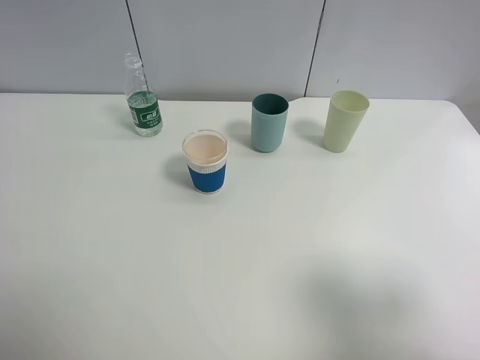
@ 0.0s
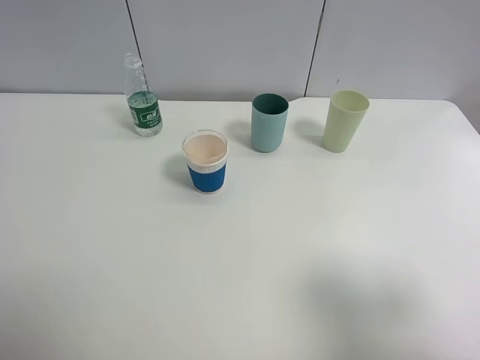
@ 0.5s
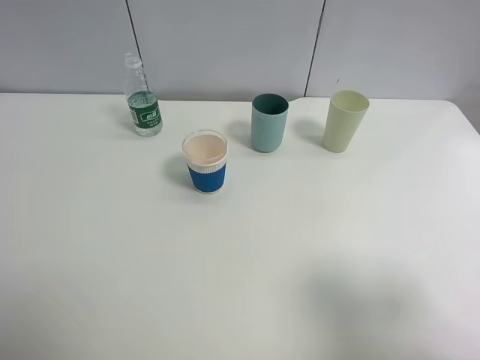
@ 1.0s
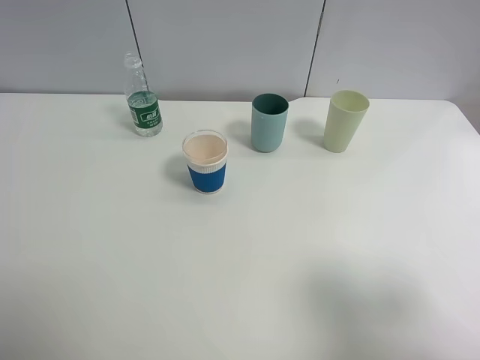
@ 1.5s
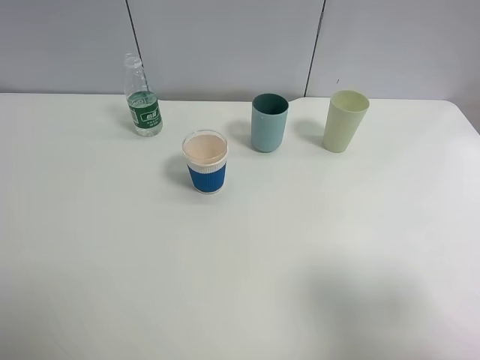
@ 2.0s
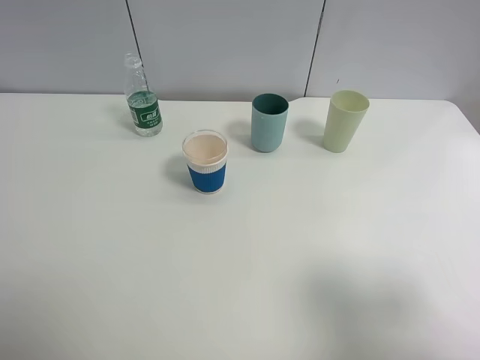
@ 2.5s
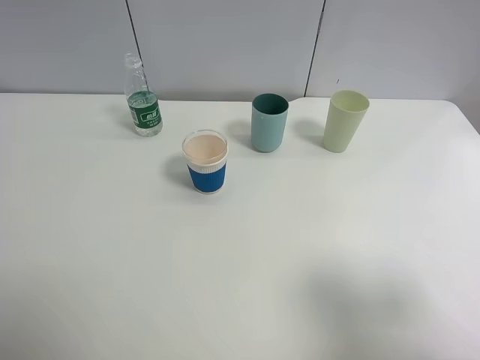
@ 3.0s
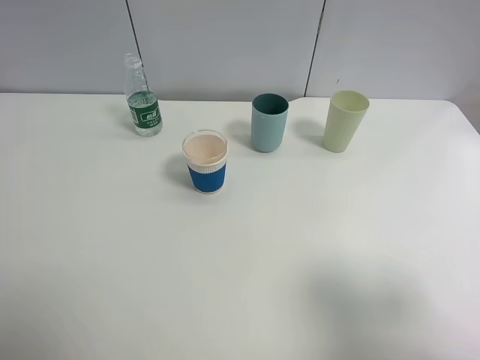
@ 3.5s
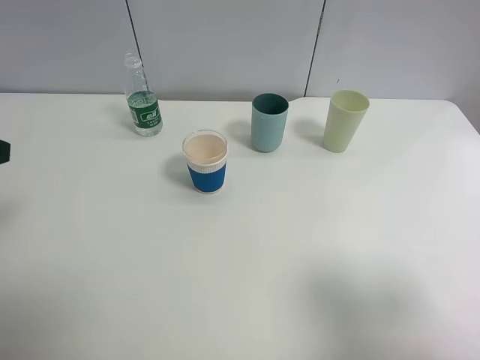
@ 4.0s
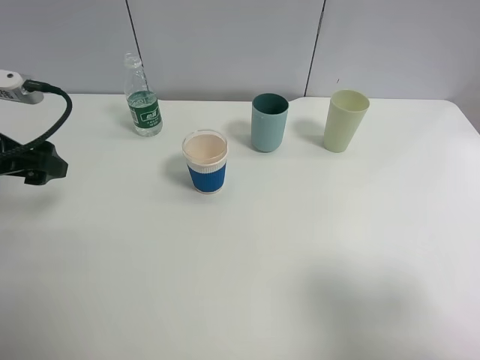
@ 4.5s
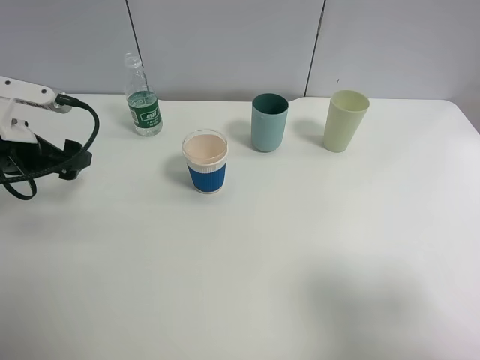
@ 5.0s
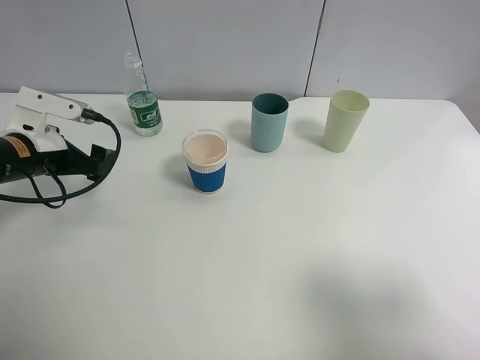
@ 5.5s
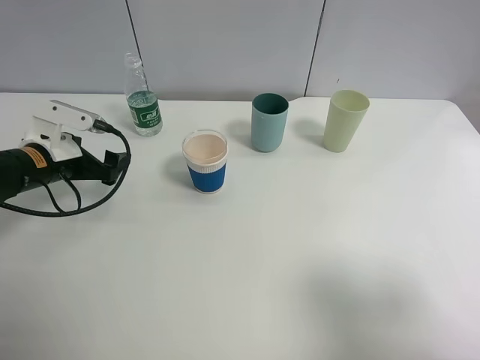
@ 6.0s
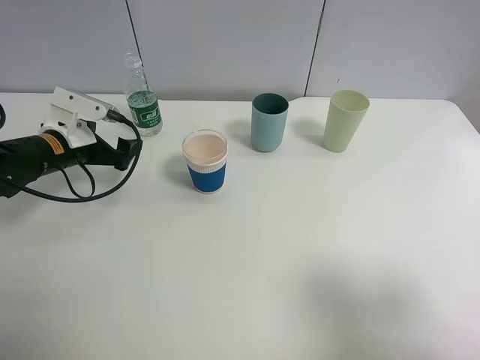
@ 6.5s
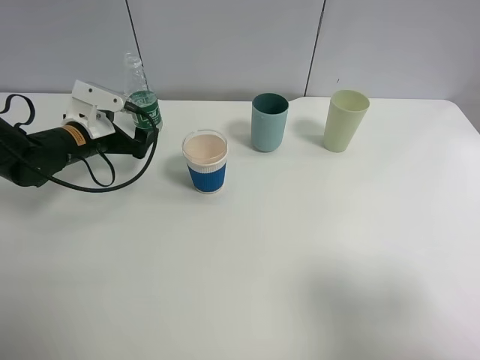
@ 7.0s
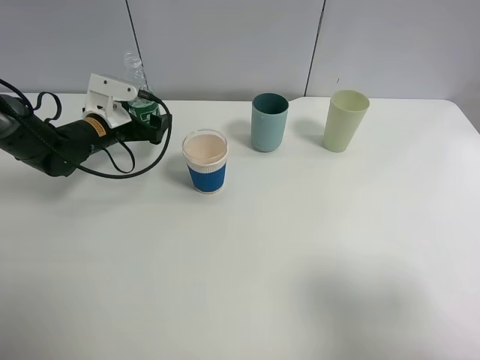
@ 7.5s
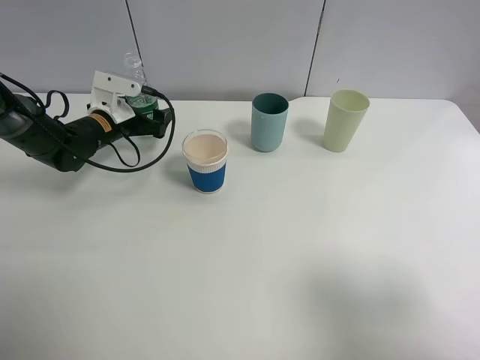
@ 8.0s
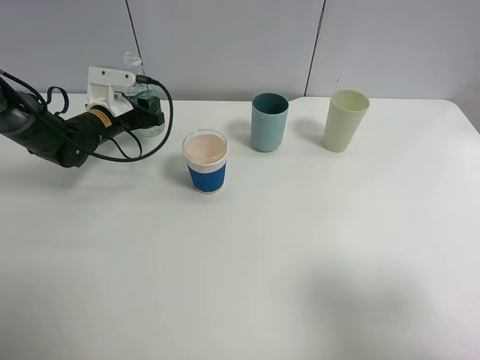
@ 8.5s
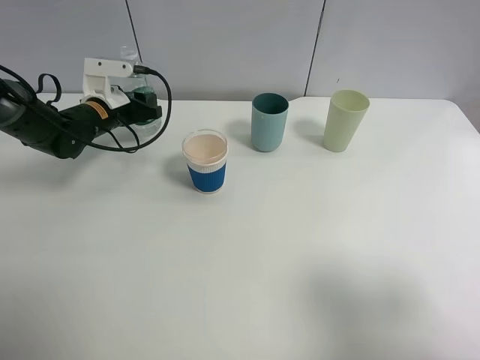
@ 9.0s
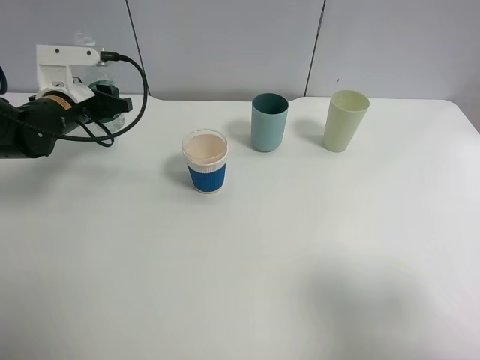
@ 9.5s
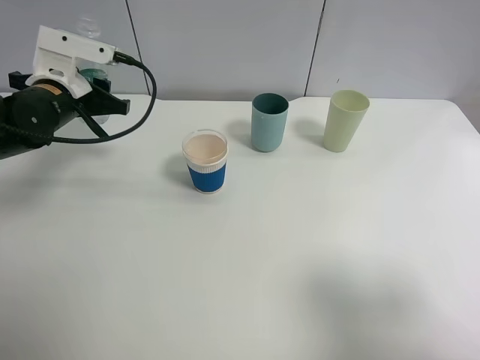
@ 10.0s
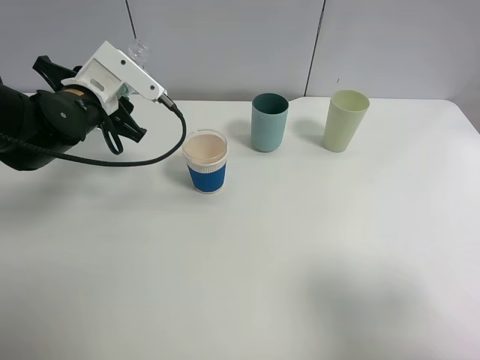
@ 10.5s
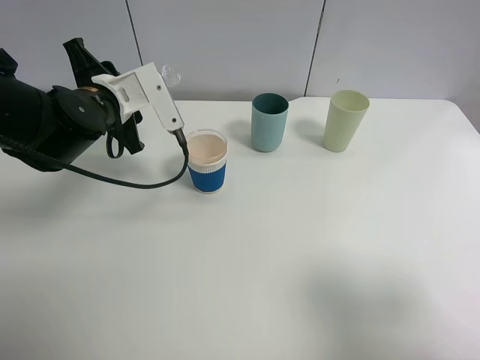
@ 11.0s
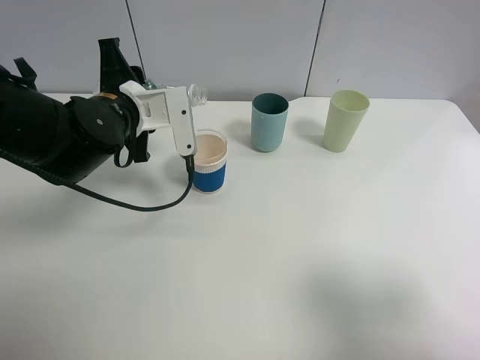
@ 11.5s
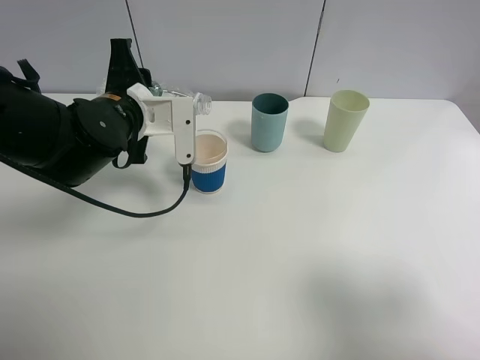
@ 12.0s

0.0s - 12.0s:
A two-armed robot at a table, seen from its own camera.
Task of the whole recording: use a clamp to hold the bottle of the drink, pour the beverage into a random cup, then clamp the cup containing the drink and pour the drink into another random cup.
Step, 0.0s - 8.5s: Pick up the water bottle with left gripper.
0.0s - 2.0s: Both grippers stay about where they are.
4.0s - 6.0s: The left gripper heads downward and forward, covering about 20 cm.
6.0s - 8.0s: The left gripper heads forward, covering about 10 cm.
8.0s - 10.0s: The left gripper moves upward and backward, roughly 10 cm, and closes its fingers.
10.0s - 12.0s: The left gripper is displaced to the right by about 10 cm.

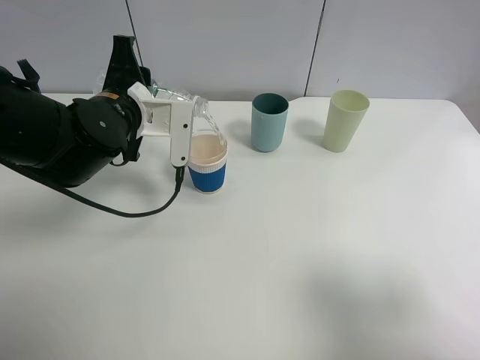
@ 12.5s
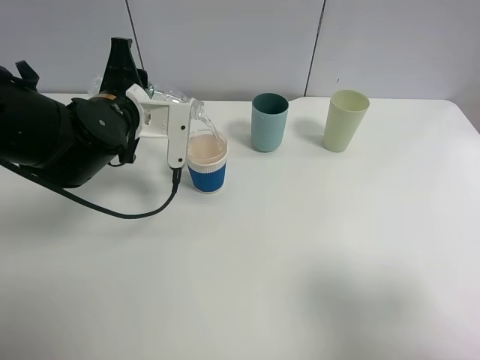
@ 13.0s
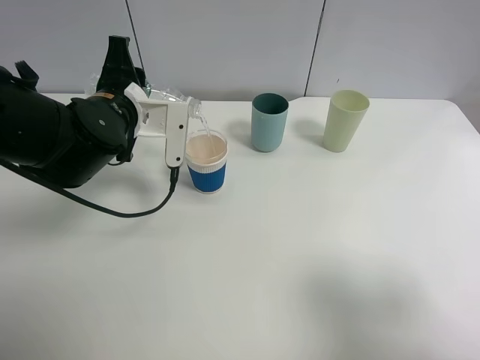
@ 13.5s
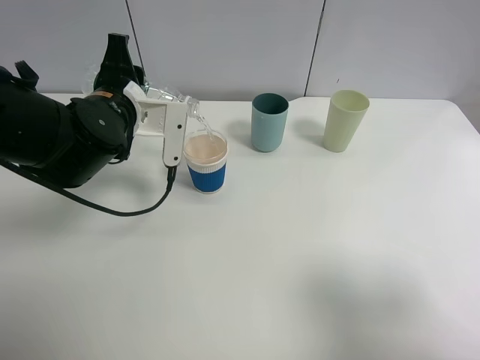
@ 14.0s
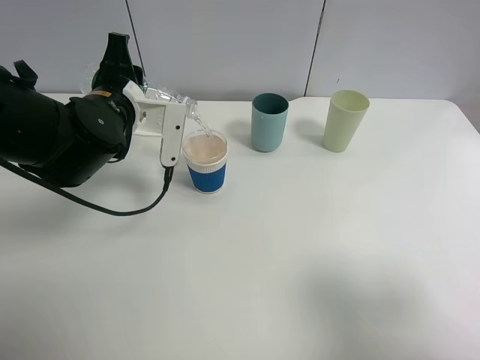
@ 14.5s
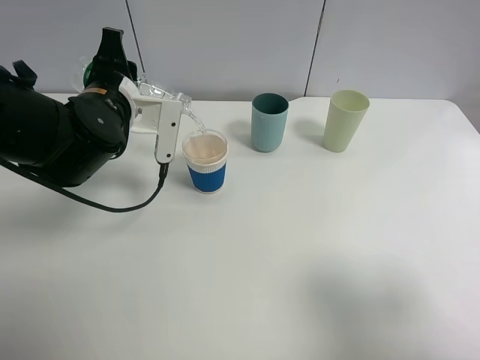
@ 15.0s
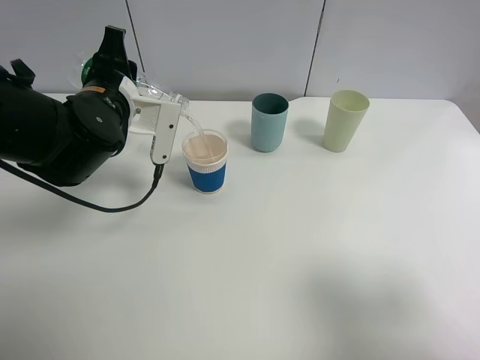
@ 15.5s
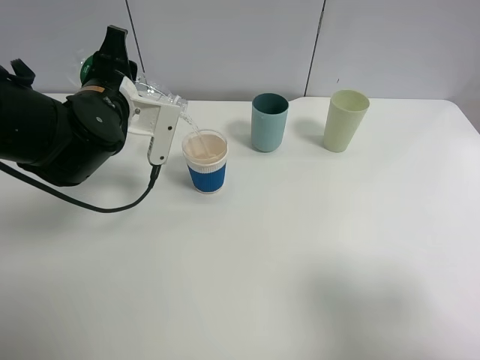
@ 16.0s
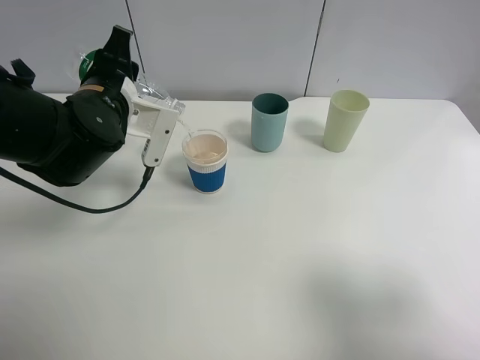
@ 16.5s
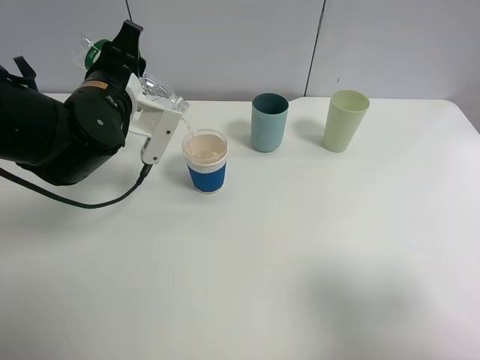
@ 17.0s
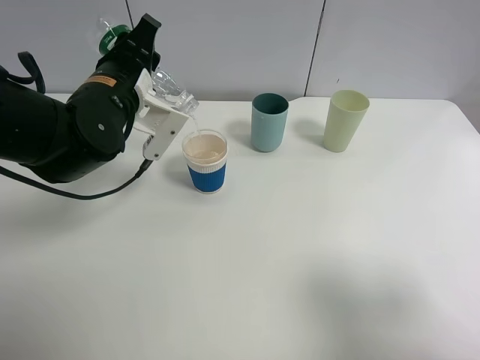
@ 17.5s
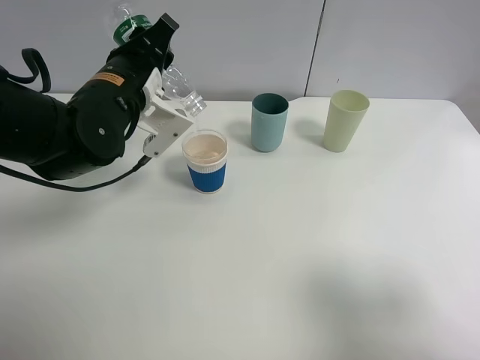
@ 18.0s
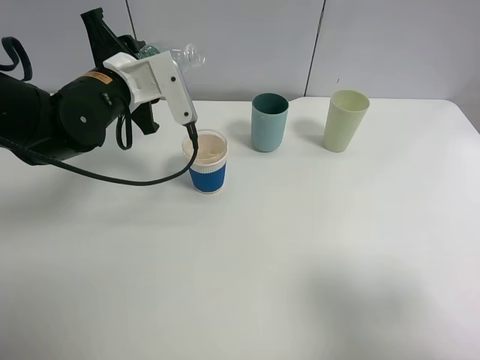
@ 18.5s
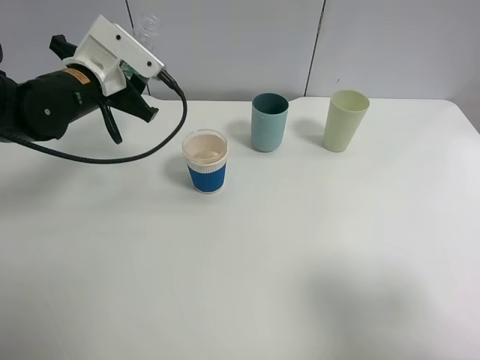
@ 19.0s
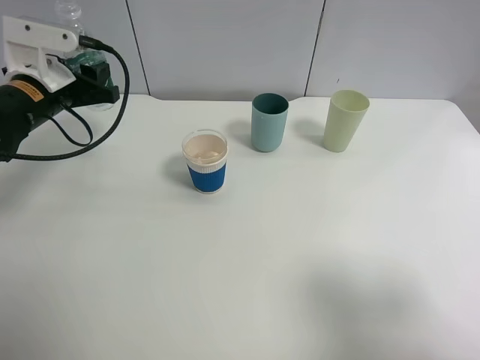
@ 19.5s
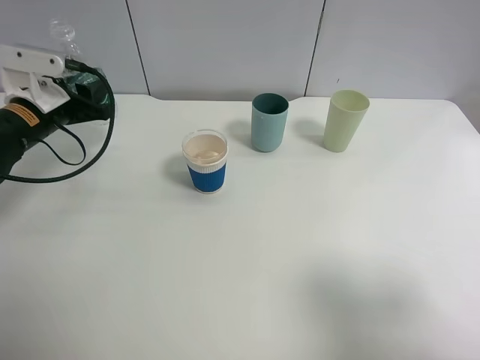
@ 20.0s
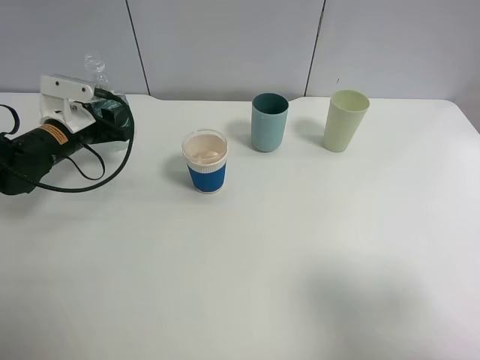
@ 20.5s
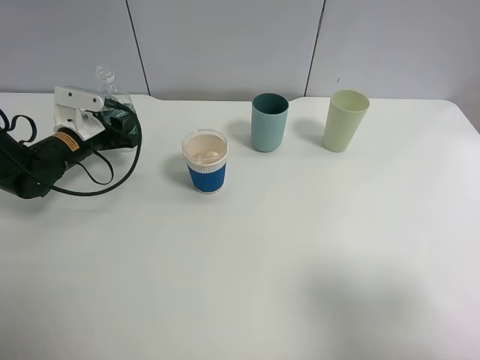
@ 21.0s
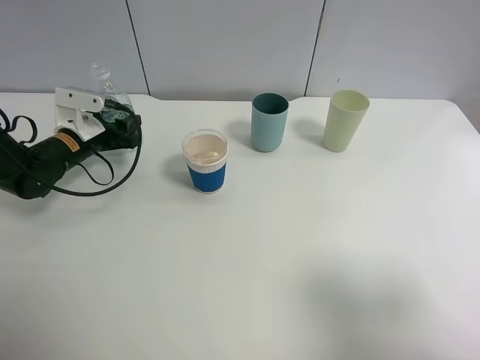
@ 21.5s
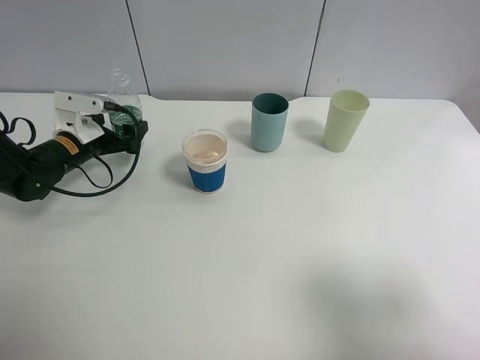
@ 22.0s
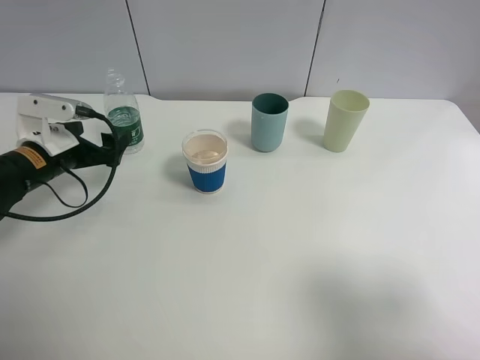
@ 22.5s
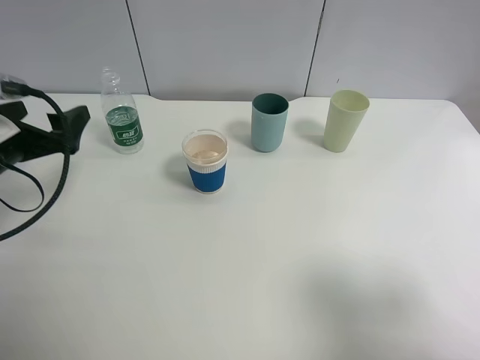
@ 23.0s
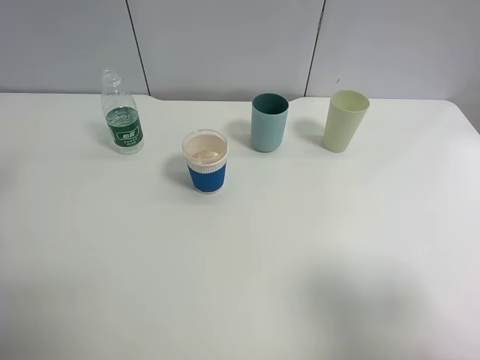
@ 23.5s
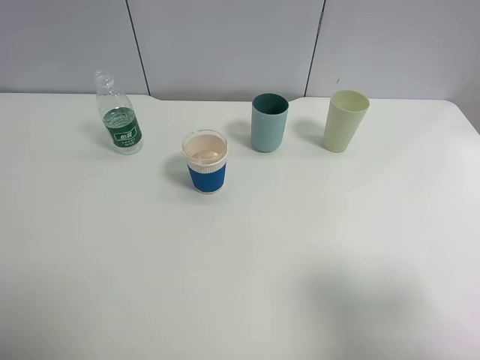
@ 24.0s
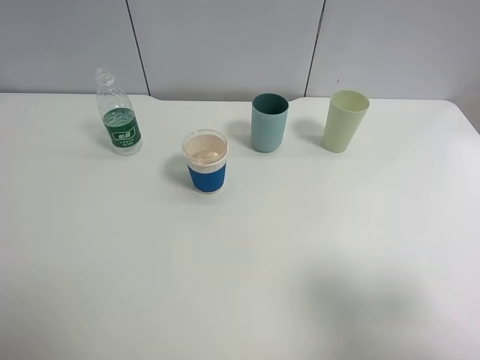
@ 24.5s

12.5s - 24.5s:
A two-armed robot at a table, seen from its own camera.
Task of the whole recording: use a clamp to hold the bottle of the drink, pour the beverage into a random cup, then clamp the cup containing the drink and pour the drink into another random cup.
Step, 12.5s - 18.0s: Pour water into the paper cup with left gripper.
Step, 18.5s - 21.5s: Place the water bottle on the table with left gripper.
12.5s - 16.5s: There are only small adjustments of the grippers.
18.5s - 20.5s: The left gripper shifts some 15 cm to the left and downward.
20.5s - 22.5s: The left gripper moves backward, roughly 5 cm, and opens.
22.5s - 24.5s: The left gripper goes roughly 35 cm backward and upward.

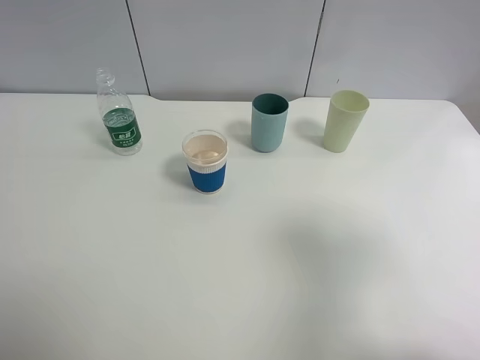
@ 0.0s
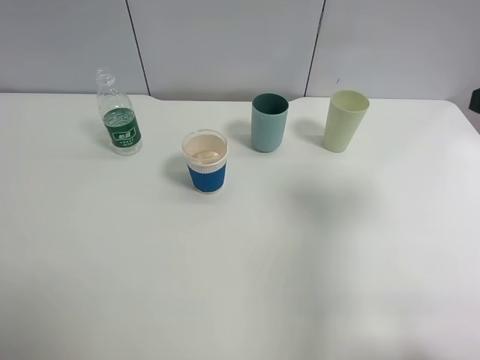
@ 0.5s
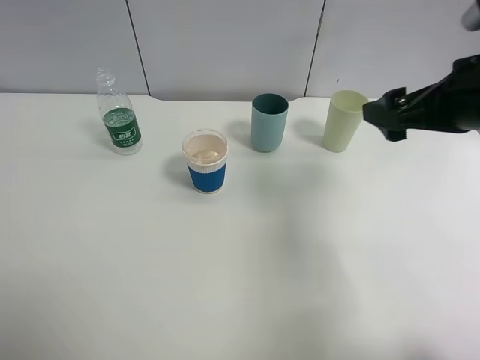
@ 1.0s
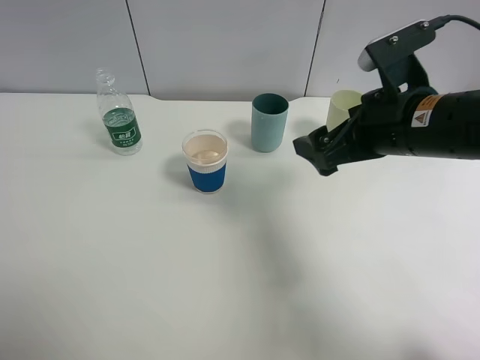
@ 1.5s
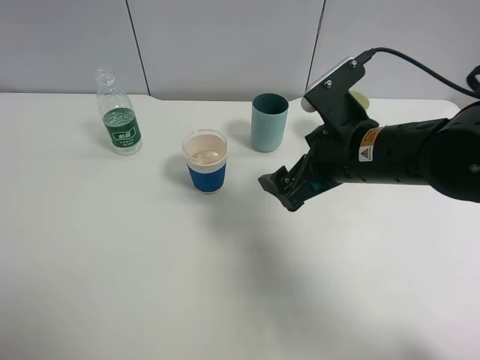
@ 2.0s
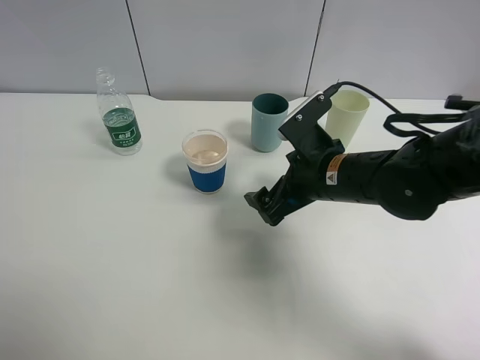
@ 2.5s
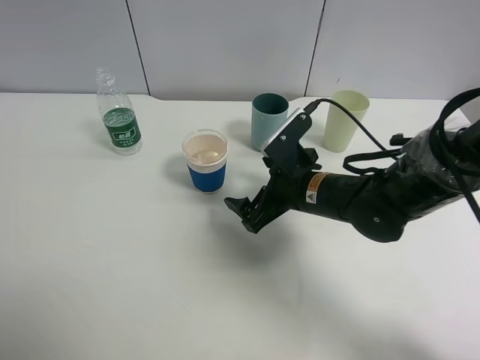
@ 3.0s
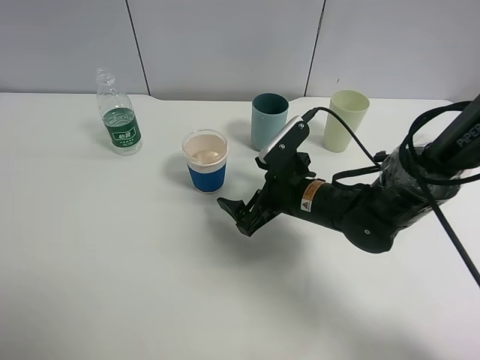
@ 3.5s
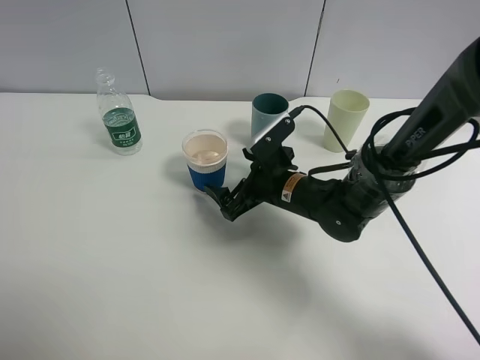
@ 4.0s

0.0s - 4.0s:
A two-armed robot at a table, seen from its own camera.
Task of the whole recording: use a clamp to hold the bottle of the drink, pour the beverage into a random cup, then clamp the cup containing the drink and pour the drink into another random cup.
0.0s - 2.0s: The right gripper heads to the left, forward and downward, covering some 25 cm.
2.0s - 4.0s: The right gripper heads downward, forward and to the left, covering about 15 cm.
